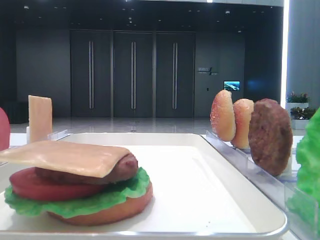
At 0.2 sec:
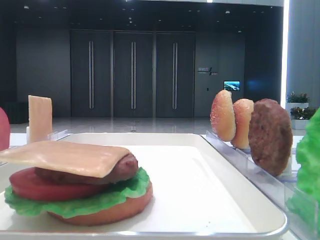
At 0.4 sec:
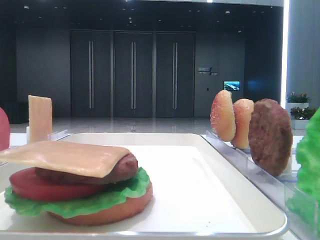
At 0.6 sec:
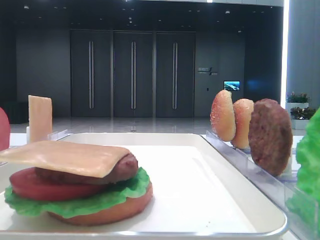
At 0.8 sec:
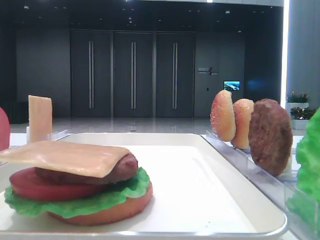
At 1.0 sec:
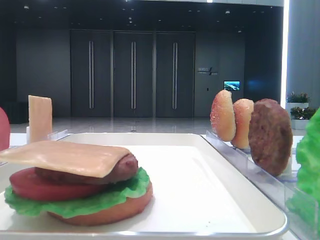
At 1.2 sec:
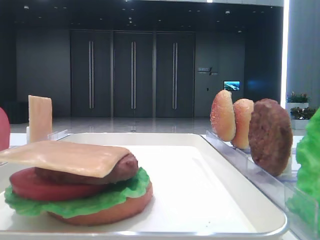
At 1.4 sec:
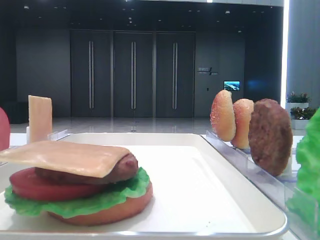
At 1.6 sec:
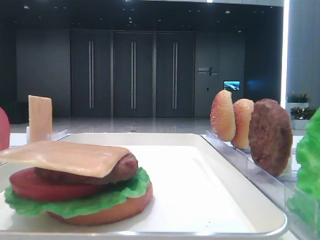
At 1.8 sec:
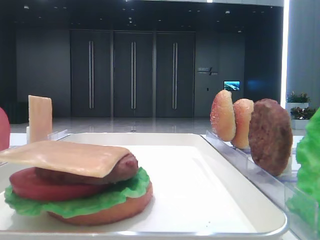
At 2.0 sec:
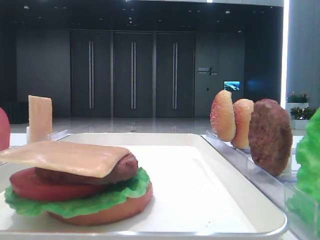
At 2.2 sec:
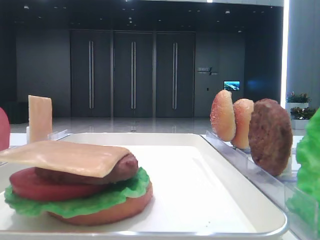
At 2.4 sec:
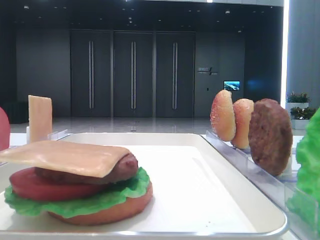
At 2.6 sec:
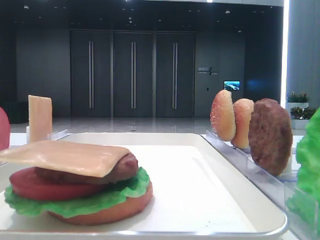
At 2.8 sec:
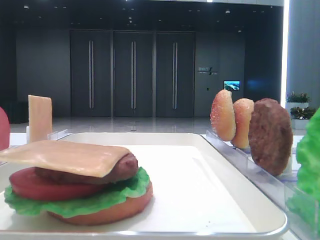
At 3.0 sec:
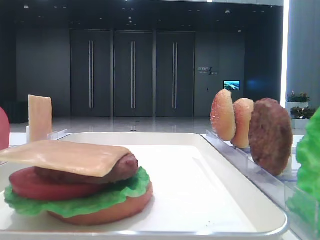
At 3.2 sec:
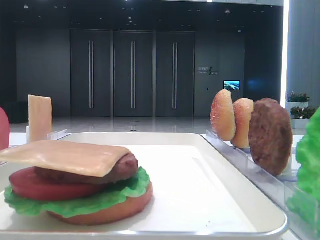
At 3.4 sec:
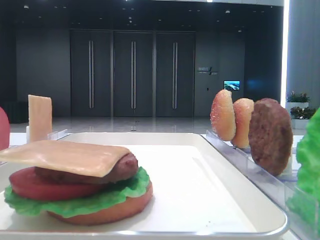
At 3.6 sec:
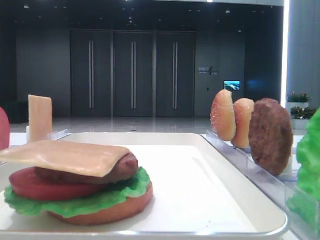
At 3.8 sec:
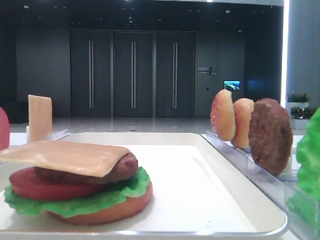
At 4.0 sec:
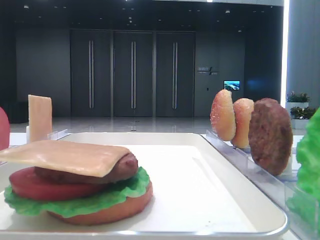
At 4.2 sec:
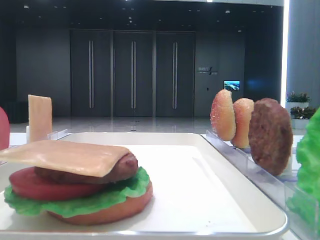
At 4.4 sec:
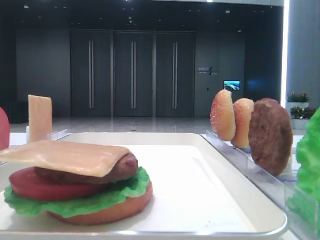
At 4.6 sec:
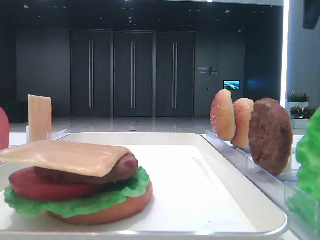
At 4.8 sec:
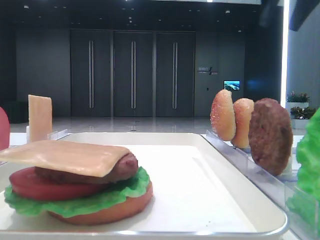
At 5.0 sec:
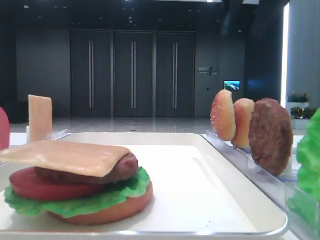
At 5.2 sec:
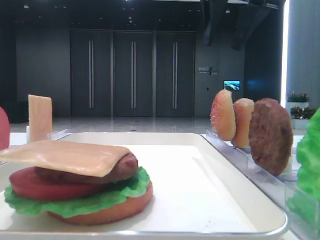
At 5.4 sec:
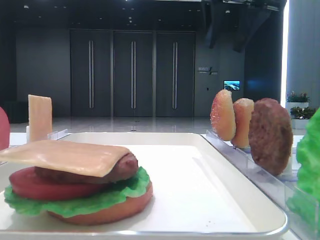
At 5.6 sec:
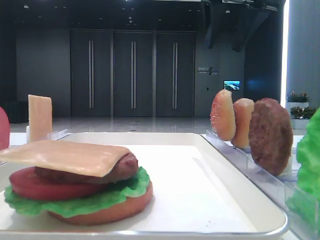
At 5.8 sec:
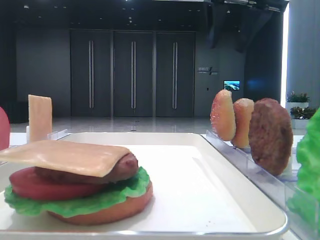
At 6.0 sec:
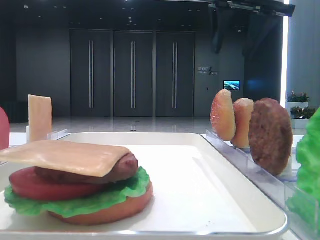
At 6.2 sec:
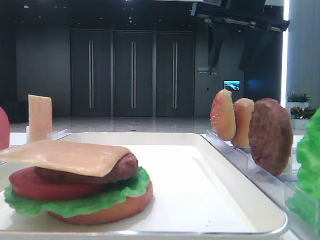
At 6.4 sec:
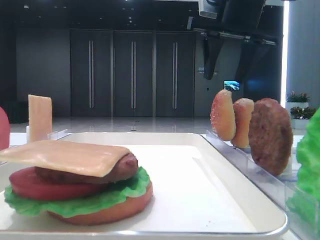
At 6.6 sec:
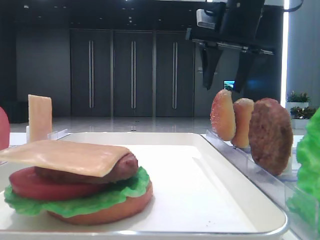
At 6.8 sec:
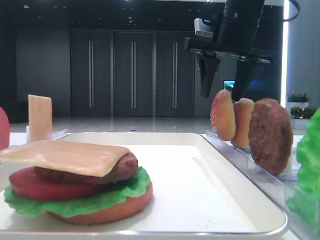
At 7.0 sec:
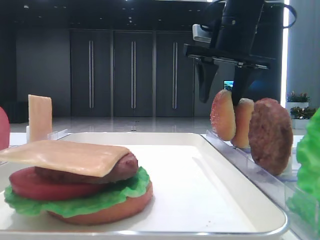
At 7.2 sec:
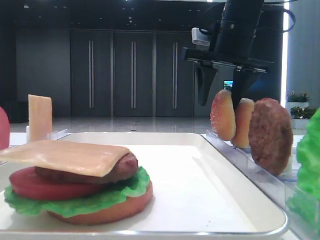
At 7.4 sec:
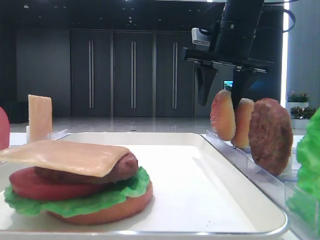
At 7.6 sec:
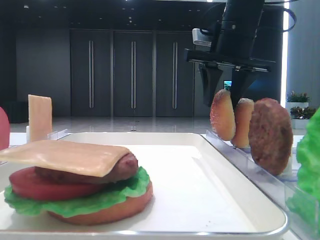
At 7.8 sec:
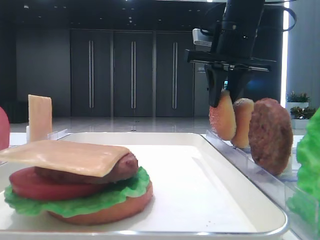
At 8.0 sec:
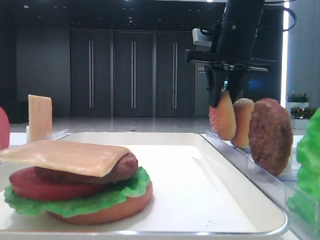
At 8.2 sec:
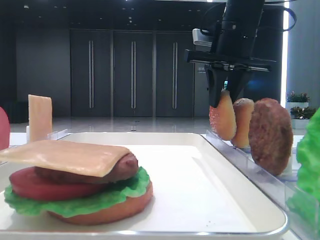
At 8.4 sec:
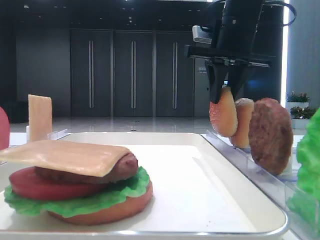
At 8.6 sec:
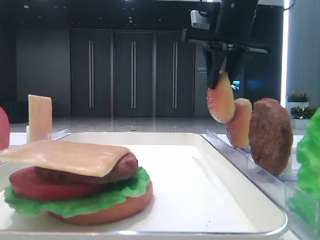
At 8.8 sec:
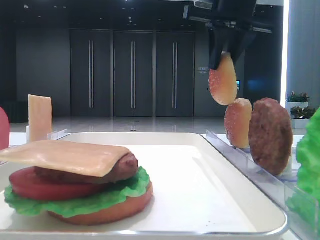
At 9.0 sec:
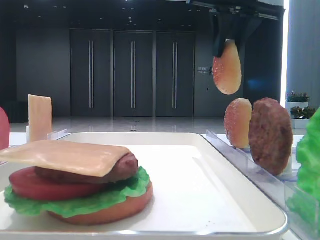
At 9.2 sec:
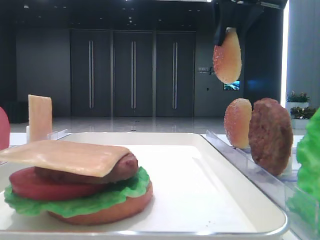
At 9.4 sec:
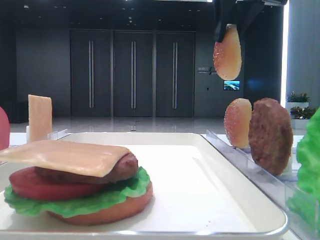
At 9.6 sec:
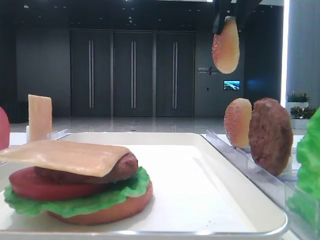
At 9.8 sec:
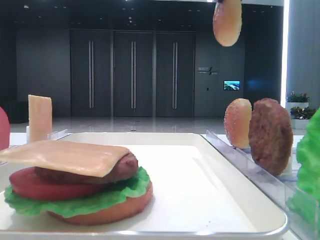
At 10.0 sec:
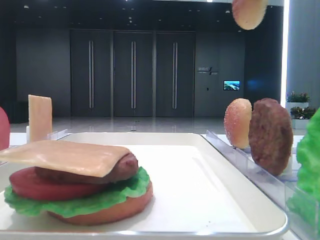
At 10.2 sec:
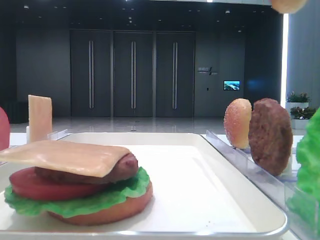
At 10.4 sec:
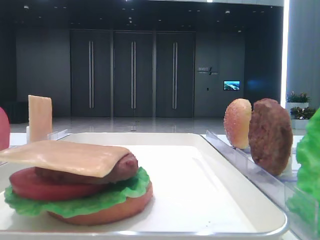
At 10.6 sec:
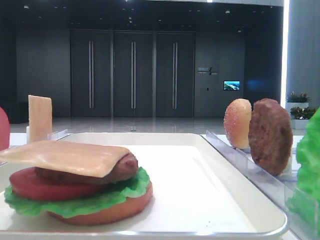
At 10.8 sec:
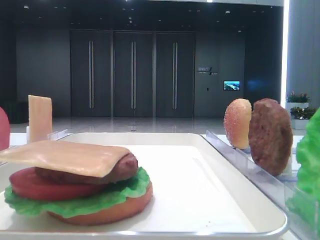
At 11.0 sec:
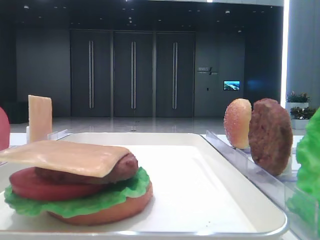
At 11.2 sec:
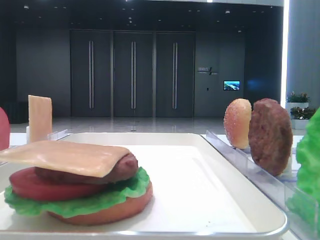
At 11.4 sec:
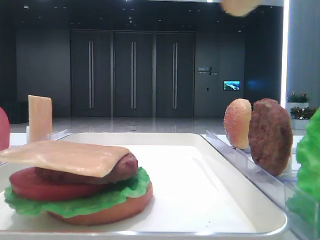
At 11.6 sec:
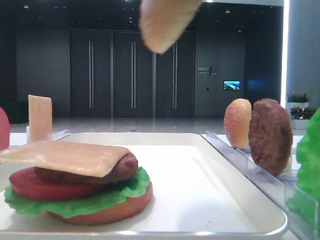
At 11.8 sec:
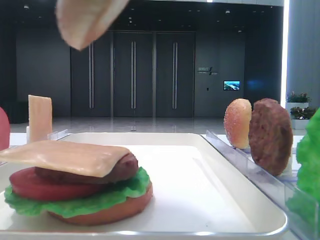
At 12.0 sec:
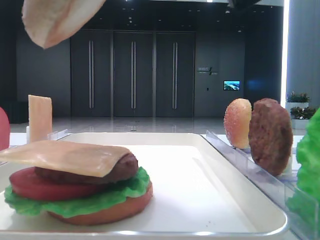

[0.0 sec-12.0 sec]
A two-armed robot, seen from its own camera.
Step, 0.0 sec to 7.8 sec: Pick up the top bread slice with the right hand.
4.4 sec to 6.0 sec: The right gripper goes some 15 cm to the left.
6.0 sec to 7.6 sec: The right gripper heads downward, covering roughly 10 cm.
7.6 sec to 9.0 sec: The right gripper moves upward, approximately 10 cm, and closes up.
9.0 sec to 10.4 sec: The right gripper goes about 20 cm backward.
10.4 sec to 12.0 sec: The right gripper moves downward and to the left, some 15 cm.

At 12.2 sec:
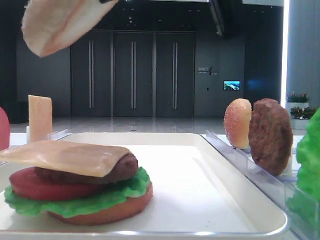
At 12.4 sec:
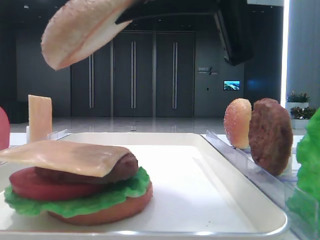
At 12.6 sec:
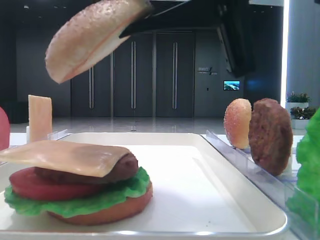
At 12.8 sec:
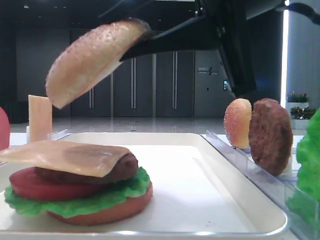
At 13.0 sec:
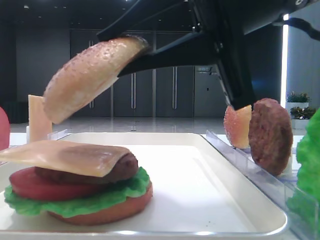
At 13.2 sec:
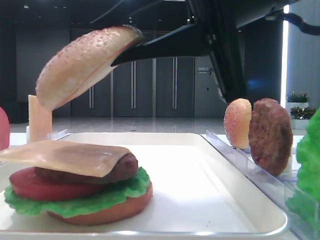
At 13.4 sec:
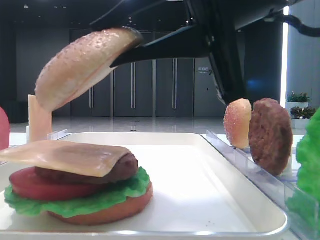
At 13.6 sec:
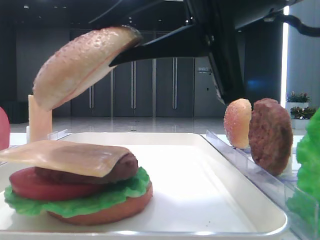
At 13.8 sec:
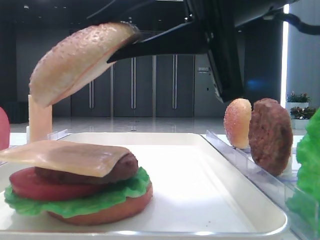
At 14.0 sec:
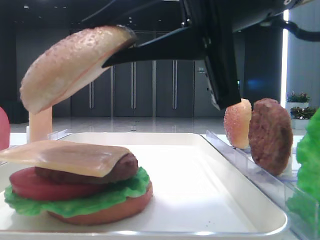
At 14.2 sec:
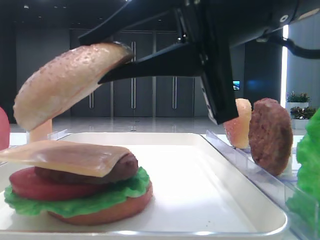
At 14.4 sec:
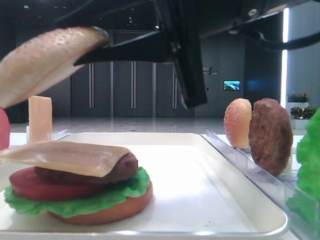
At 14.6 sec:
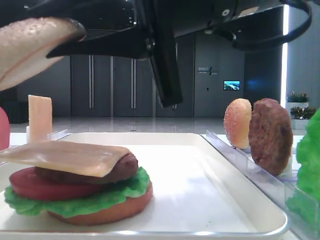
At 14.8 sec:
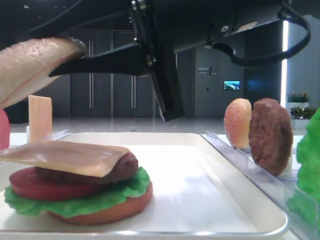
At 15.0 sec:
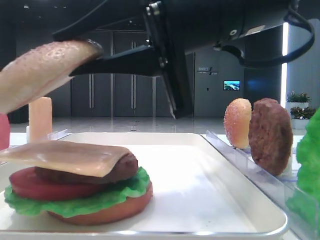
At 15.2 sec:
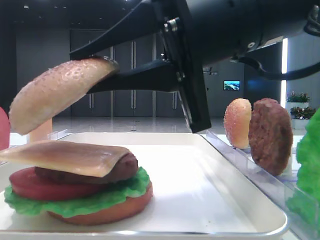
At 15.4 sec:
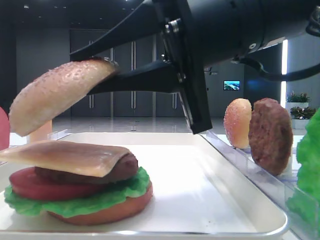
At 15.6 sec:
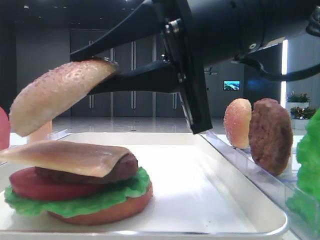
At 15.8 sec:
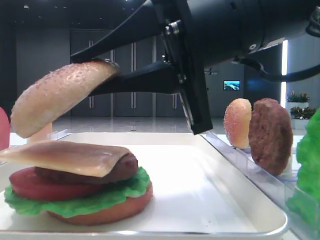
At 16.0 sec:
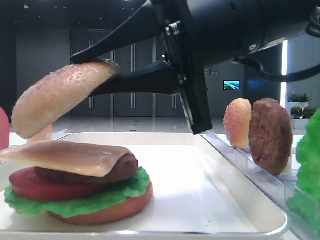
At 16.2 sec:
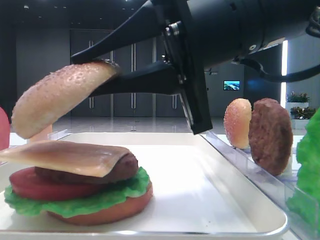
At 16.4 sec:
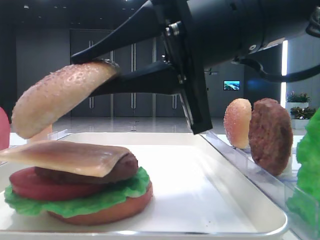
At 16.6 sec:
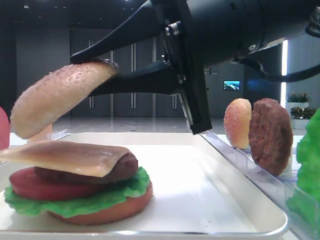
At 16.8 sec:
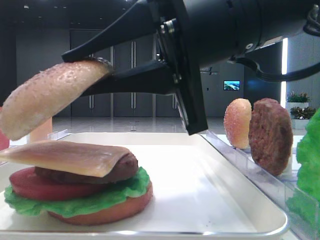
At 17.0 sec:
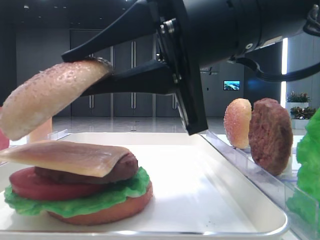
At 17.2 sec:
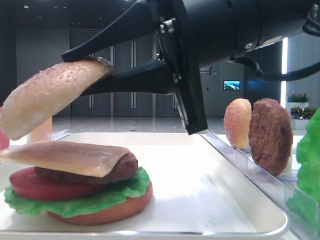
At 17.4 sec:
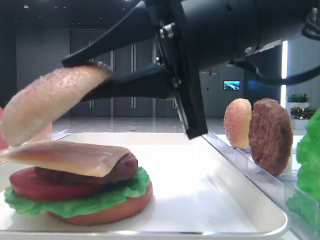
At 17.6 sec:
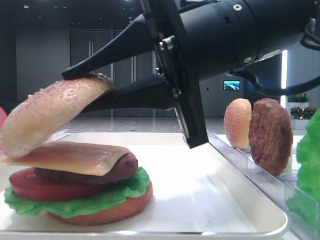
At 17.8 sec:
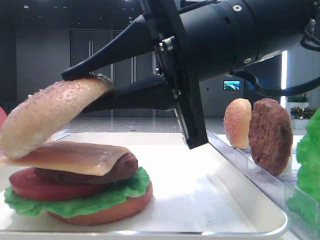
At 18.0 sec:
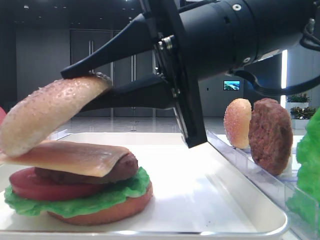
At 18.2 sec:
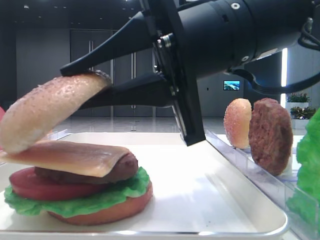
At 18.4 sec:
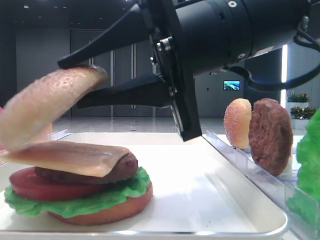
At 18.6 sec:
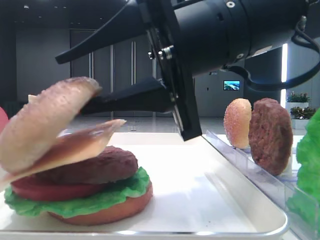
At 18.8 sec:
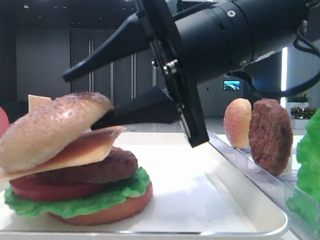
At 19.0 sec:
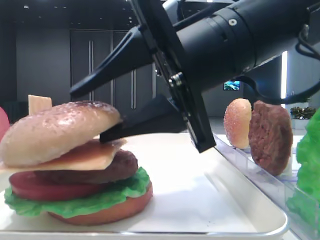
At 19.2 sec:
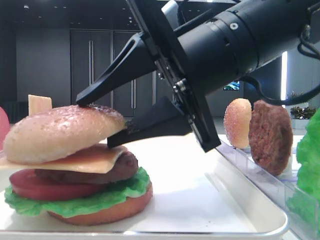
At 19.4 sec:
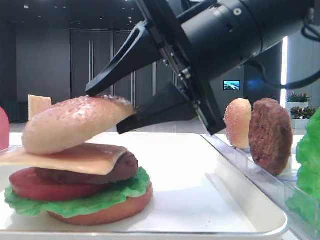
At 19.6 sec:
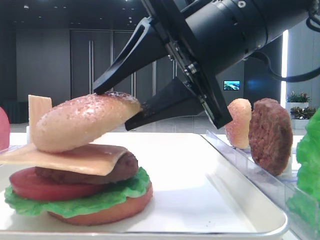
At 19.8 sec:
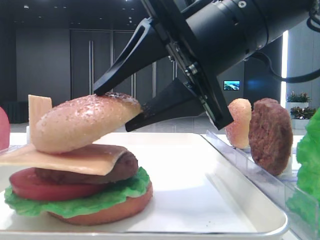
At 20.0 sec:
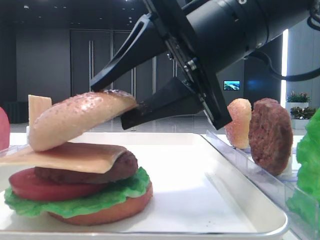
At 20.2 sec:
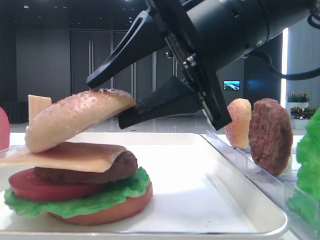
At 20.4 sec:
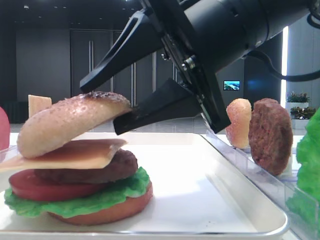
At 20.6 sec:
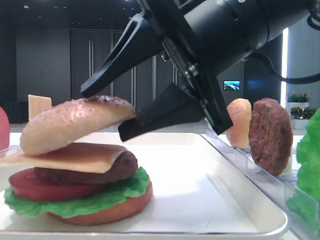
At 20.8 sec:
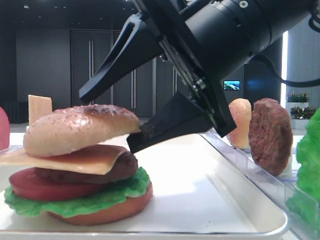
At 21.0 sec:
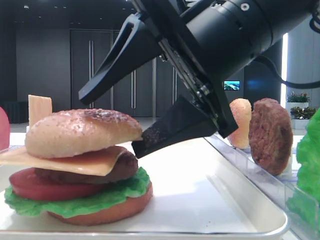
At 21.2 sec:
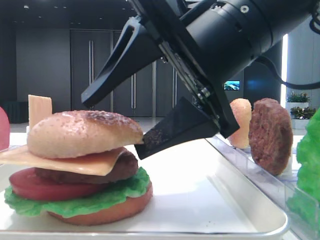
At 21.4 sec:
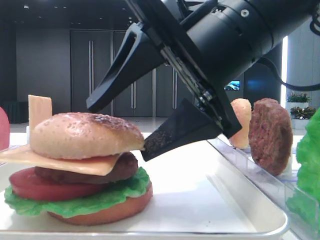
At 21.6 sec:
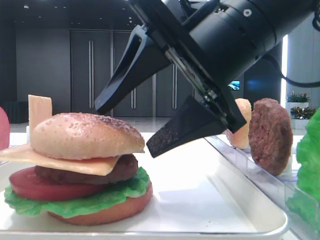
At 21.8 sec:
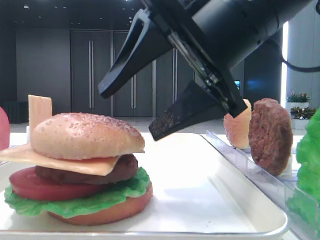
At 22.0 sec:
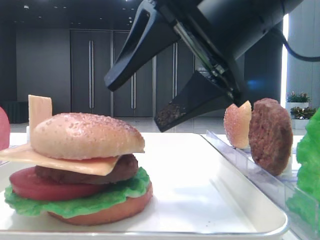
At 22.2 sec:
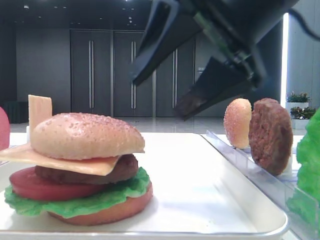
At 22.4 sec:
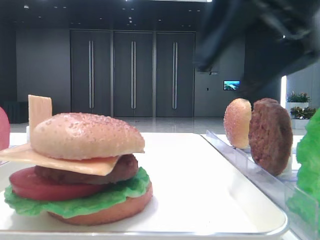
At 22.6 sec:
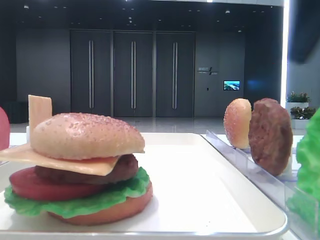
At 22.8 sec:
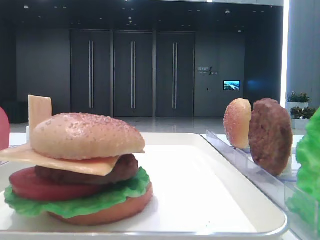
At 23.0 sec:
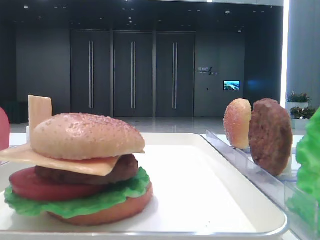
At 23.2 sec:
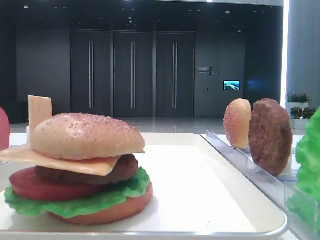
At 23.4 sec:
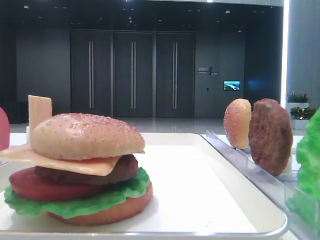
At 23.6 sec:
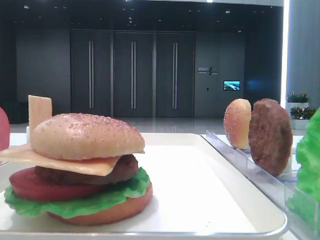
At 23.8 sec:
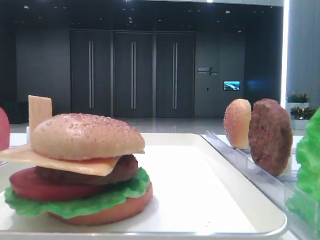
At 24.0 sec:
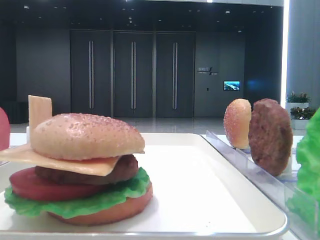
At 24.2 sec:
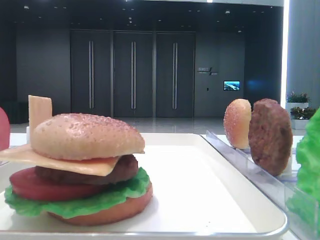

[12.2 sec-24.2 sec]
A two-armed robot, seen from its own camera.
Step, 12.2 sec to 21.4 sec: Place the top bread slice on the cheese with the right hand.
12.2 sec to 13.8 sec: The right gripper moves approximately 5 cm.
15.2 sec to 16.6 sec: The two grippers keep their place.
16.6 sec to 18.2 sec: Both grippers stay put.
18.2 sec to 19.8 sec: The right gripper opens up.
19.8 sec to 21.2 sec: The right gripper opens its fingers.
21.2 sec to 22.6 sec: The right gripper travels to the right and upward by some 15 cm.
22.6 sec to 24.2 sec: The right gripper goes approximately 25 cm backward and to the right.
